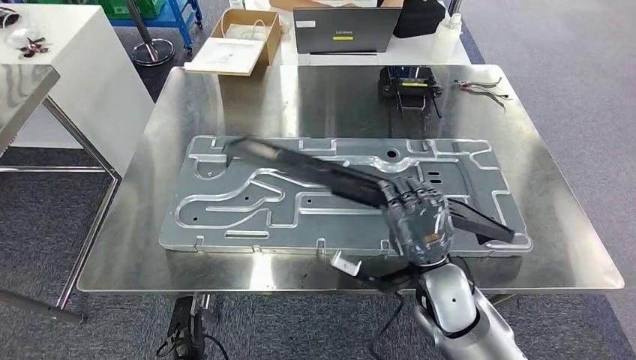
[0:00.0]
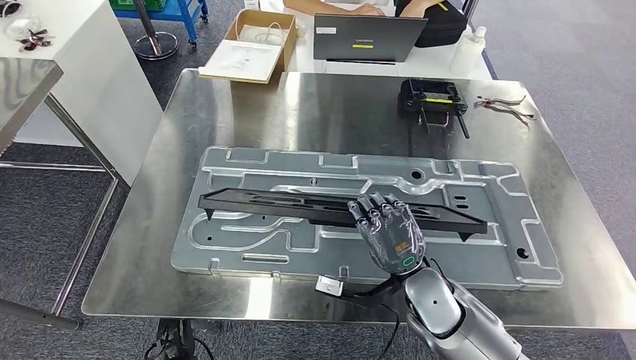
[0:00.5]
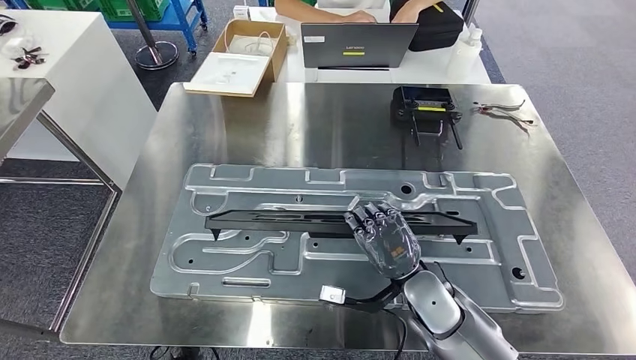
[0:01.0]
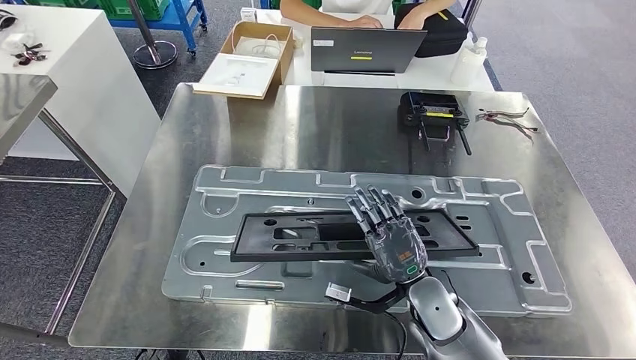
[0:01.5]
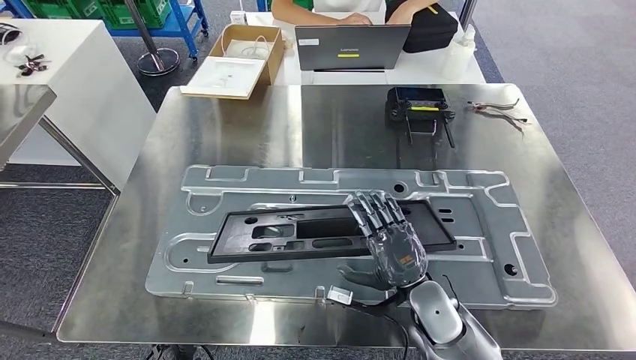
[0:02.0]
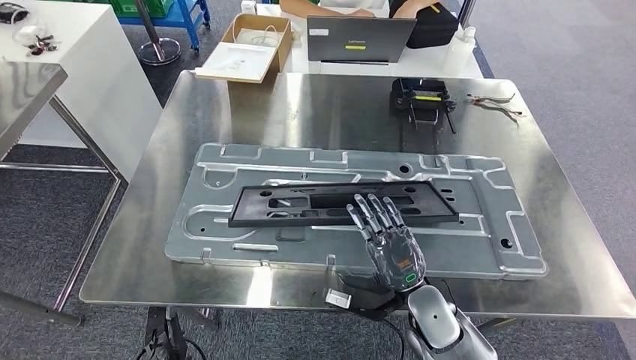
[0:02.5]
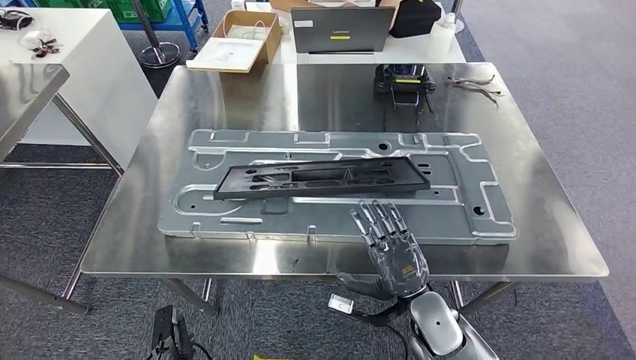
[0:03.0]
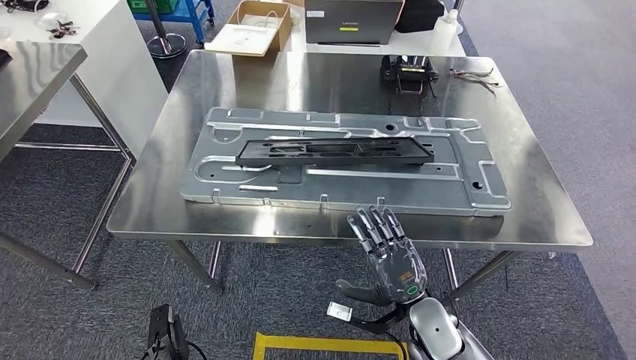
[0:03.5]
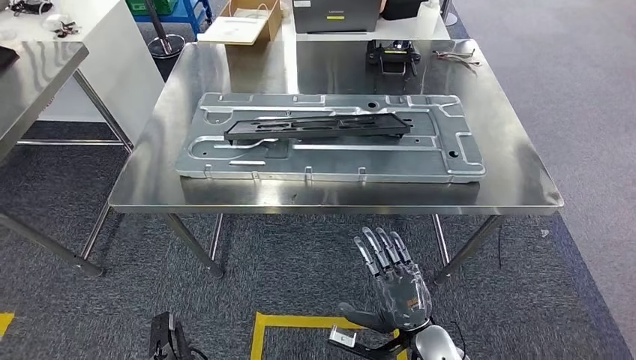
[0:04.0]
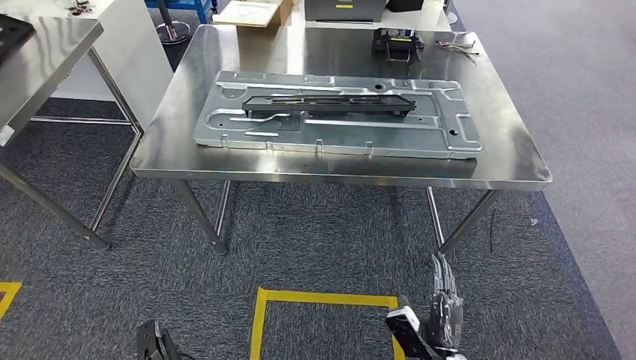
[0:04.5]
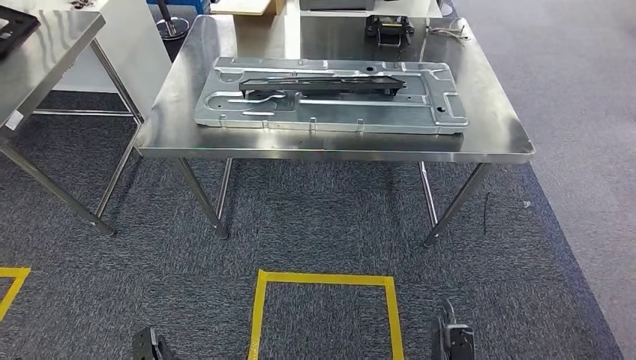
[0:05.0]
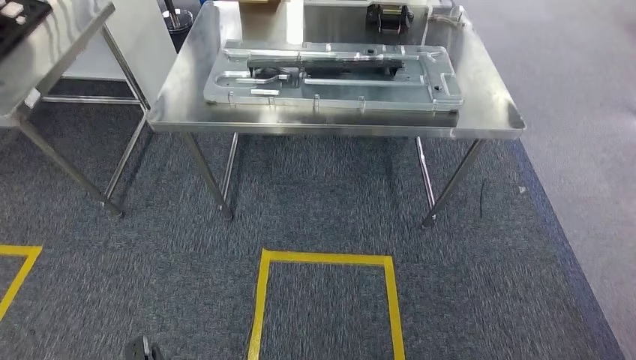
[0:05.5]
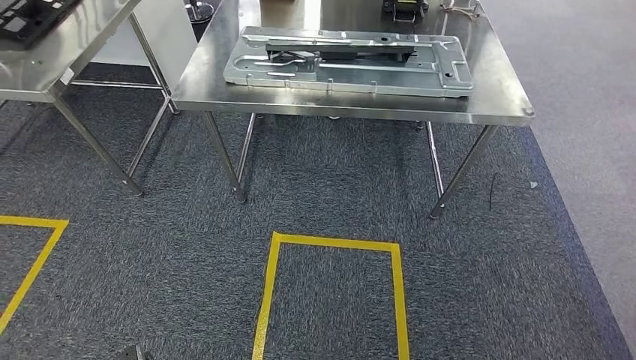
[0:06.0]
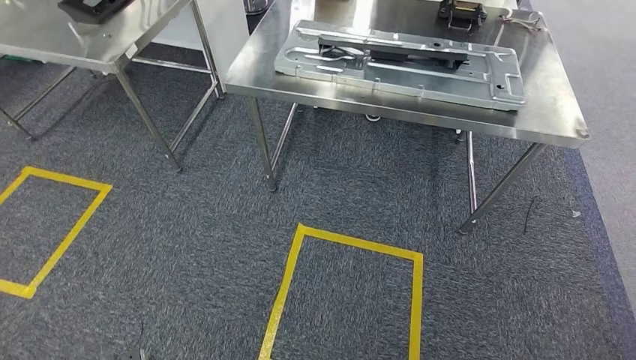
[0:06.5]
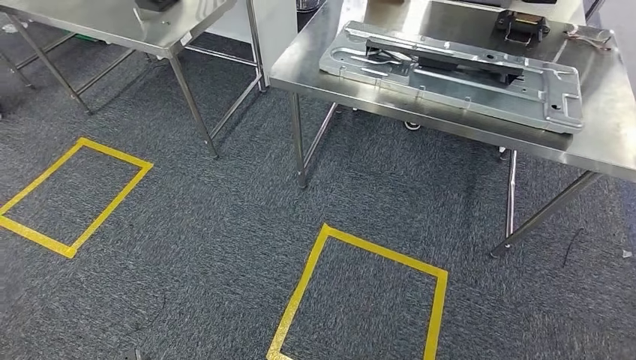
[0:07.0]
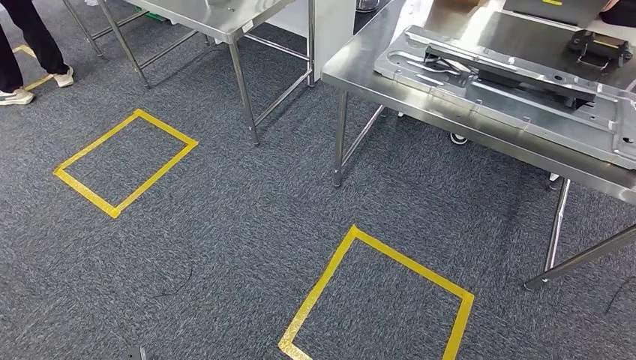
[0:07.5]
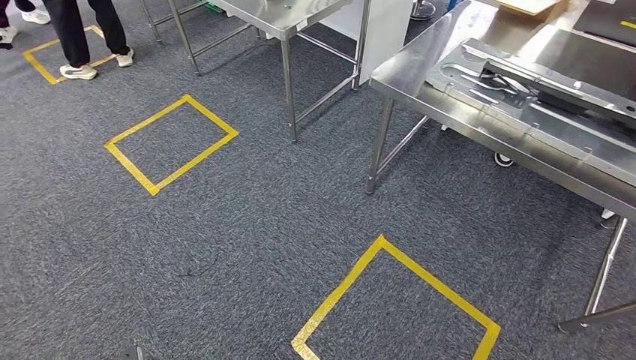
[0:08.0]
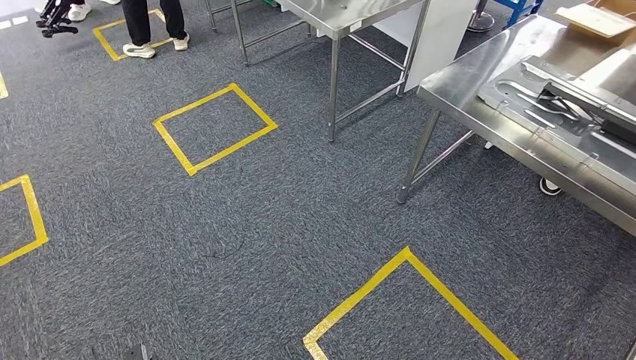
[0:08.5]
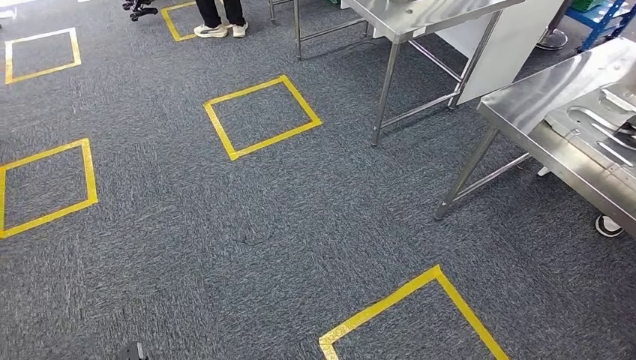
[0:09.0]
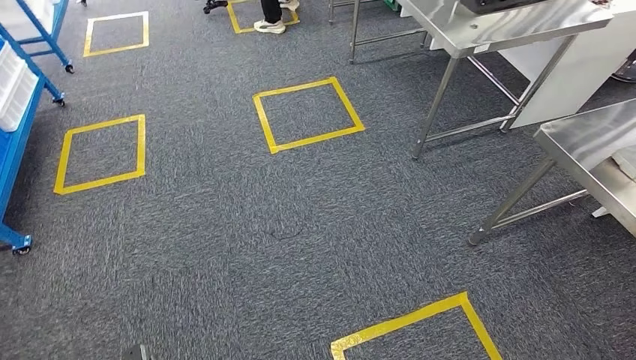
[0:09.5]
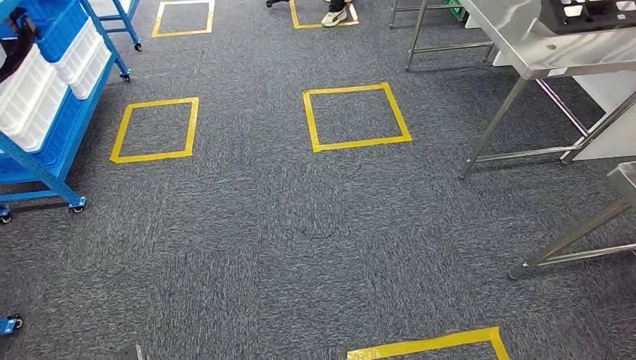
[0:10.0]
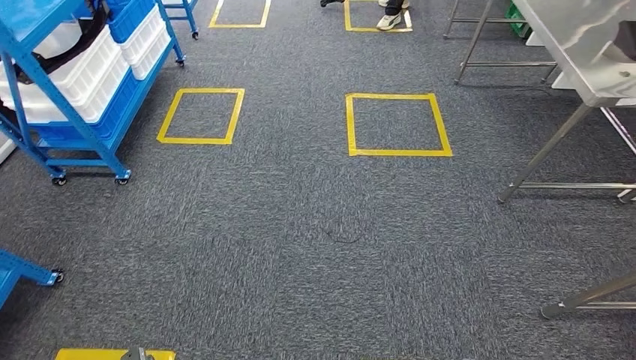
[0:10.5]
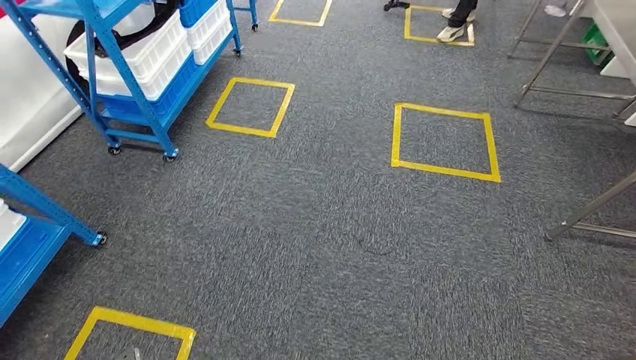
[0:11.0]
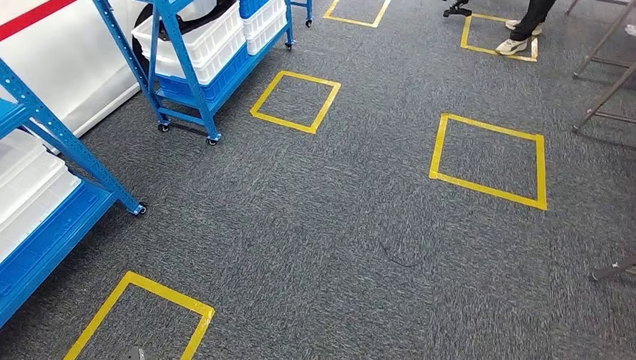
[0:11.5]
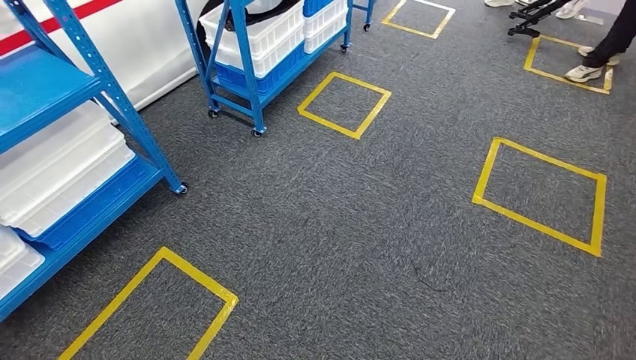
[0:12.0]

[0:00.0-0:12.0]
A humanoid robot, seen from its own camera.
Step, 0:00.0 to 0:05.5: Insert the large material into the corresponding slot on the workbench.

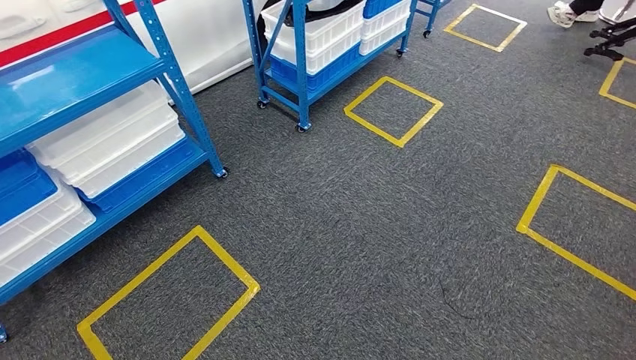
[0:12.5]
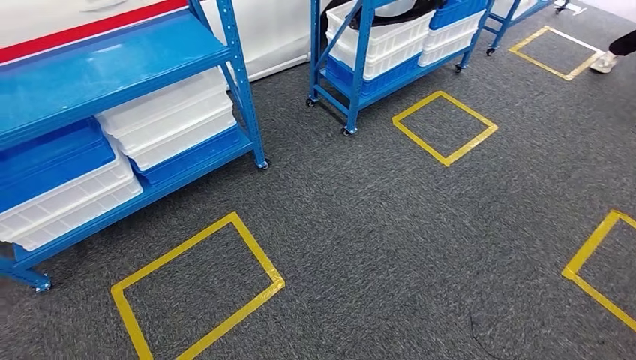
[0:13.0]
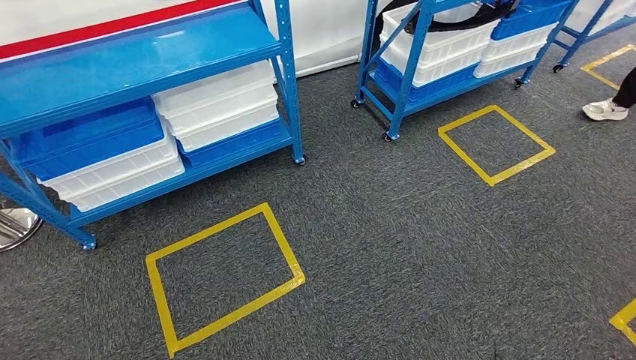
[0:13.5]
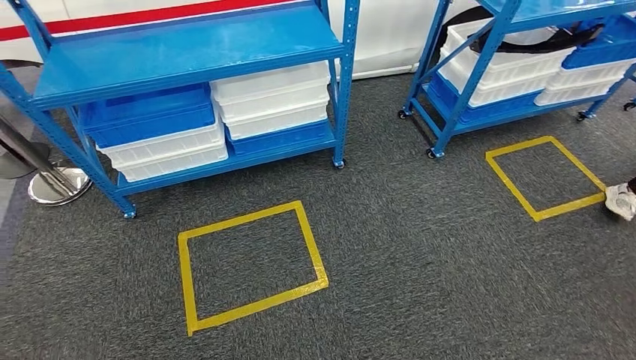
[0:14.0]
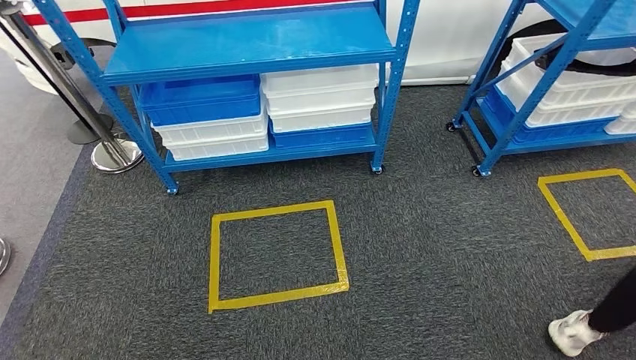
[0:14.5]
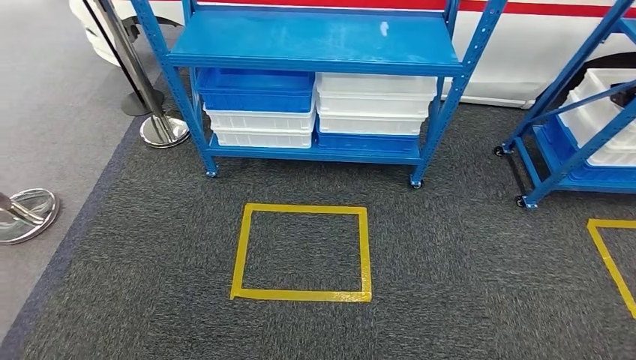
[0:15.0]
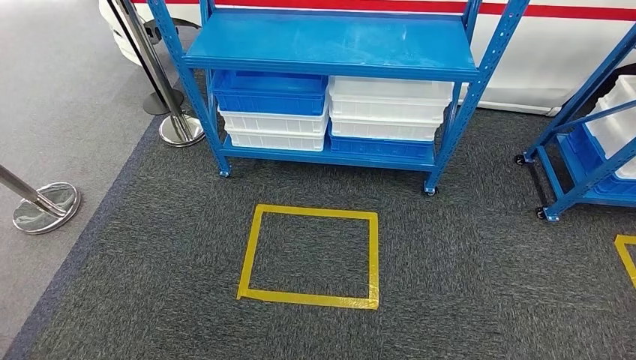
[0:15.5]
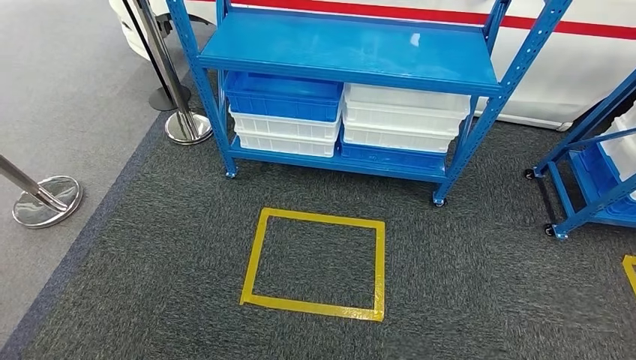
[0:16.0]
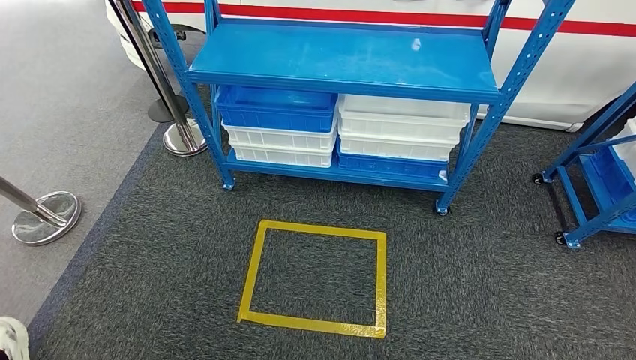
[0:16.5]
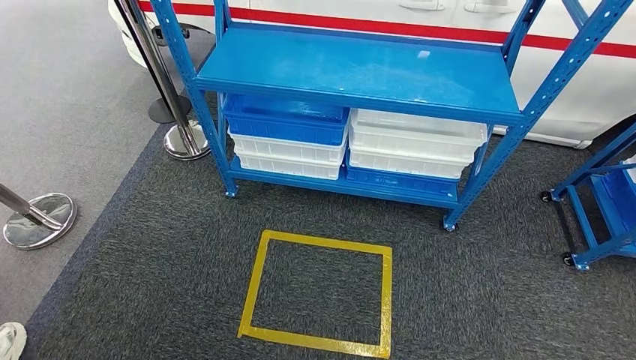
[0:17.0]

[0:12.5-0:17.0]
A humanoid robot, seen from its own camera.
Step, 0:12.5 to 0:17.0: Move to the initial position of the shelf.

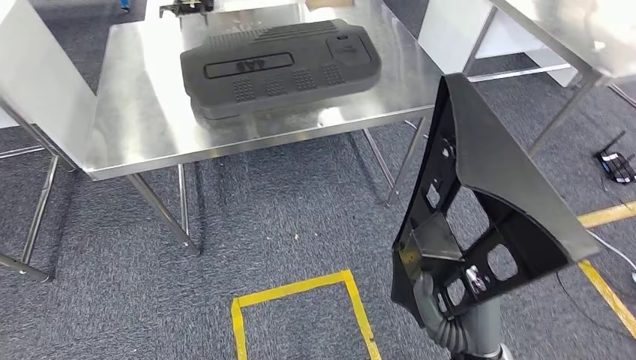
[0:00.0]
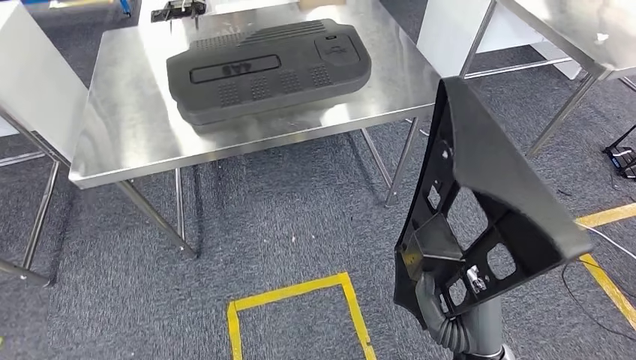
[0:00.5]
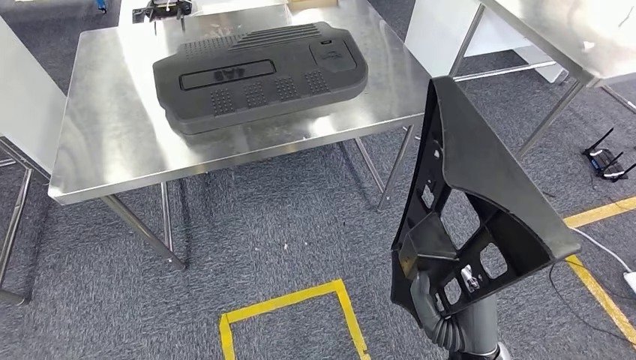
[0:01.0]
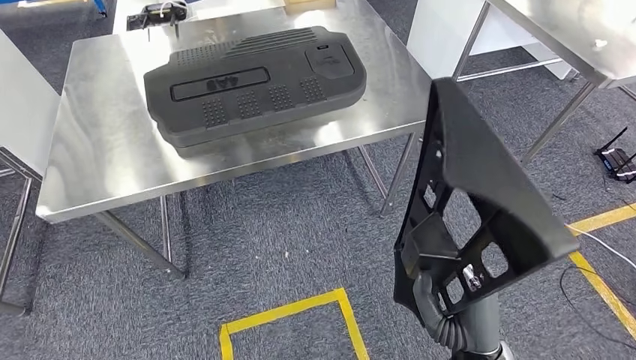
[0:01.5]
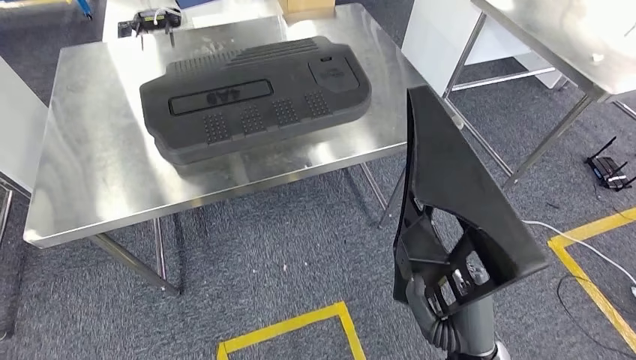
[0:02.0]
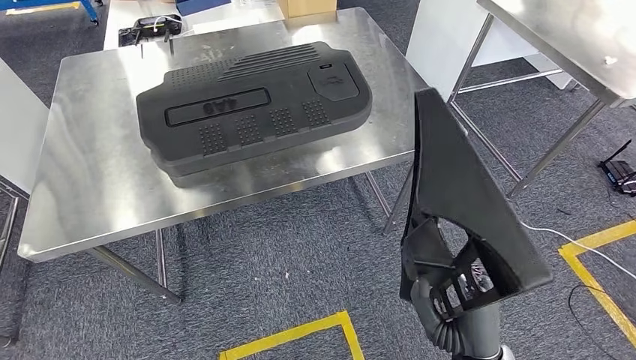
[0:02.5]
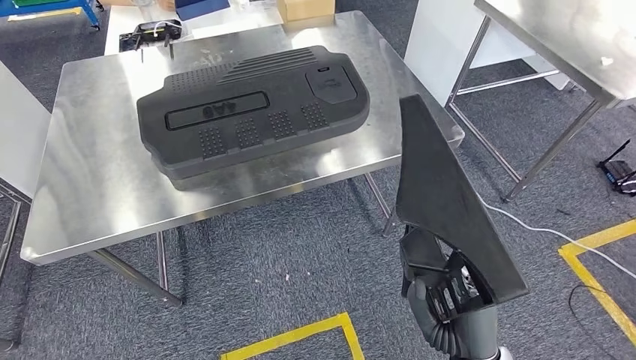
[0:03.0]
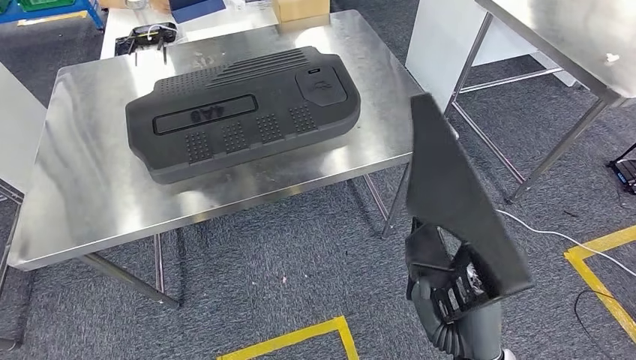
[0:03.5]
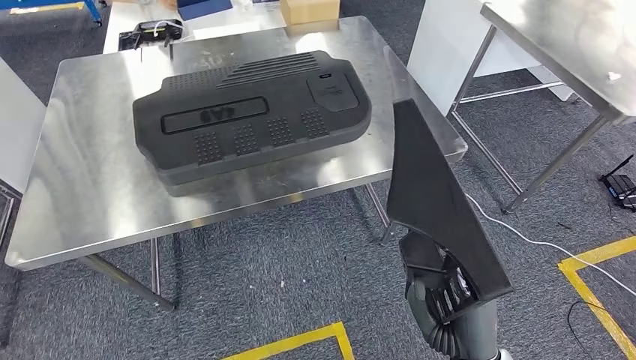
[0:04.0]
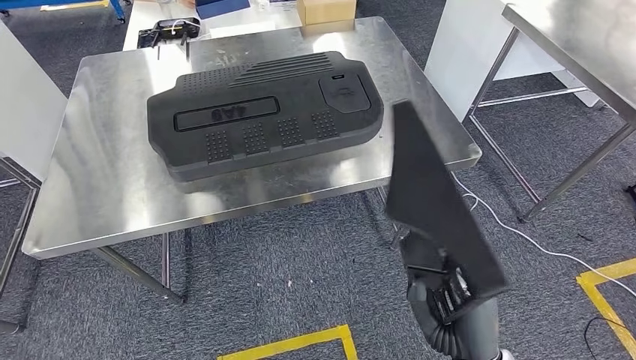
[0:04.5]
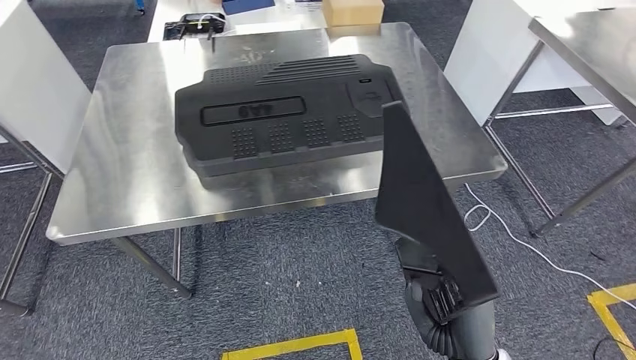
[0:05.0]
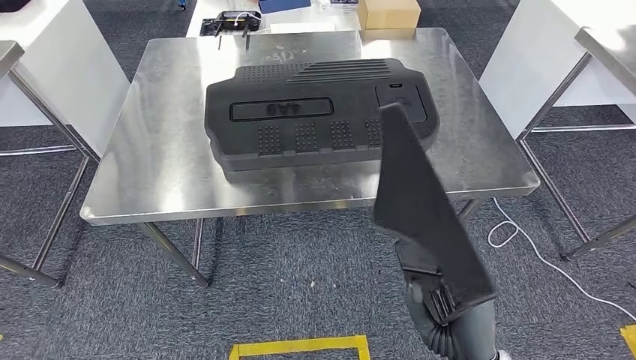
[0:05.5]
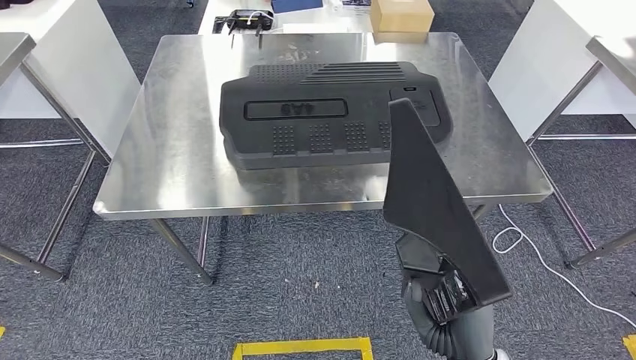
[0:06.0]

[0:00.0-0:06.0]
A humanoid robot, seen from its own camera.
Step, 0:00.0 to 0:02.0: Move the large material to the workbench.
